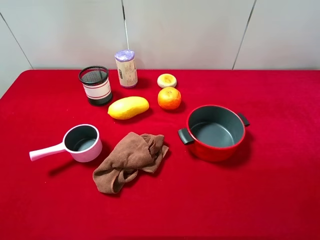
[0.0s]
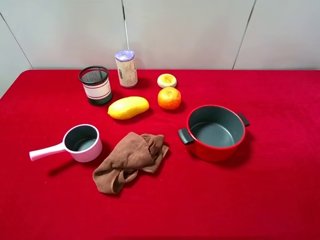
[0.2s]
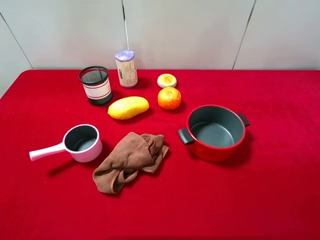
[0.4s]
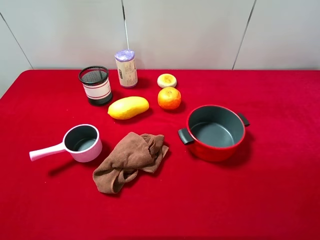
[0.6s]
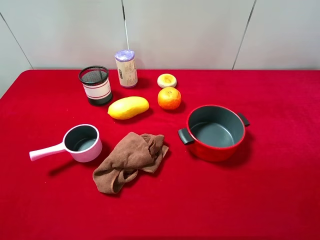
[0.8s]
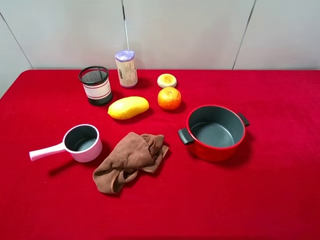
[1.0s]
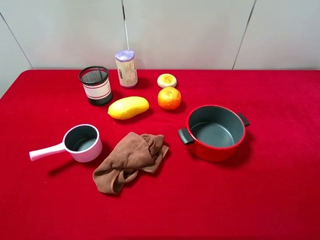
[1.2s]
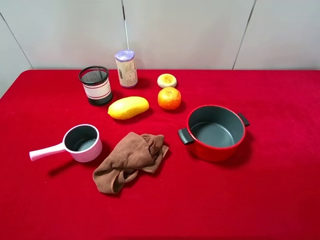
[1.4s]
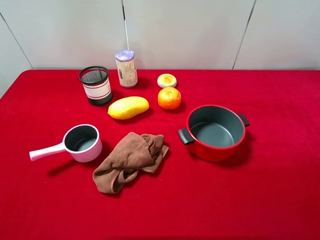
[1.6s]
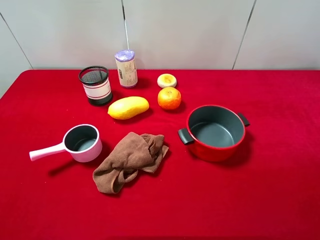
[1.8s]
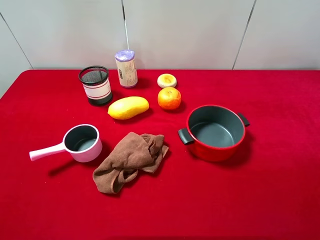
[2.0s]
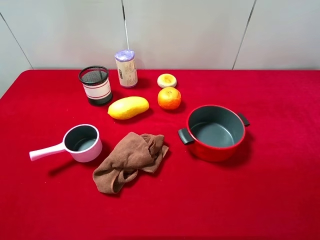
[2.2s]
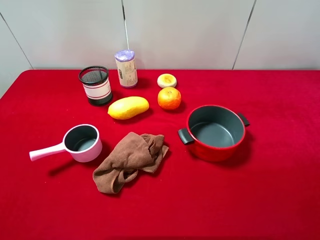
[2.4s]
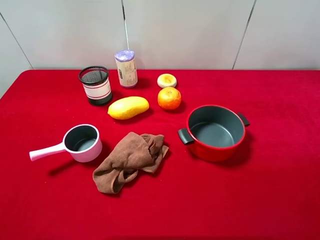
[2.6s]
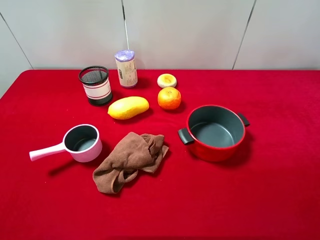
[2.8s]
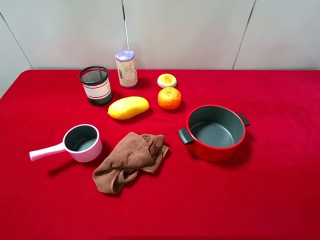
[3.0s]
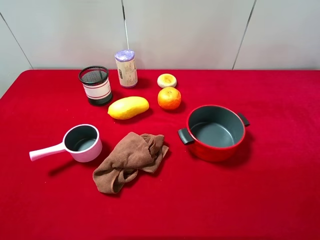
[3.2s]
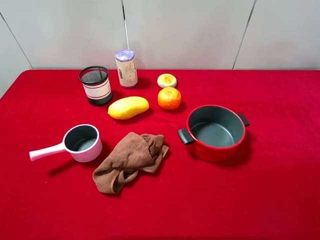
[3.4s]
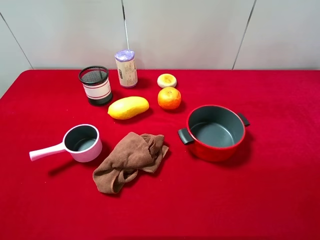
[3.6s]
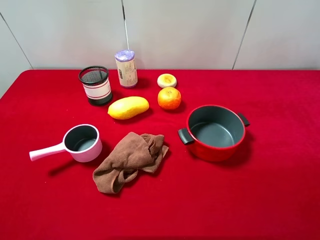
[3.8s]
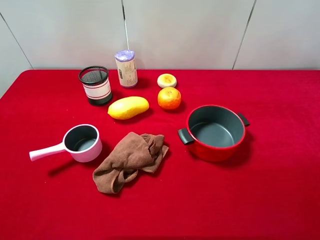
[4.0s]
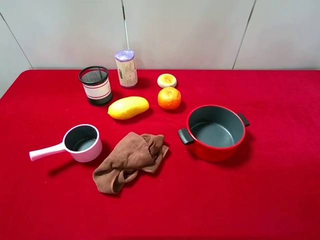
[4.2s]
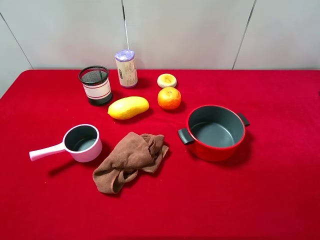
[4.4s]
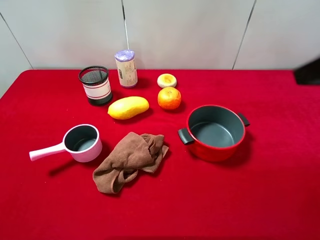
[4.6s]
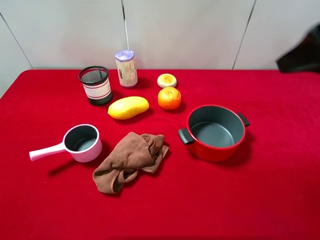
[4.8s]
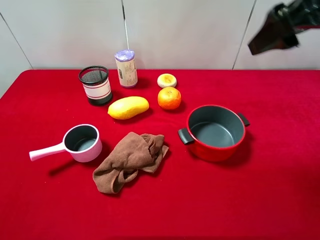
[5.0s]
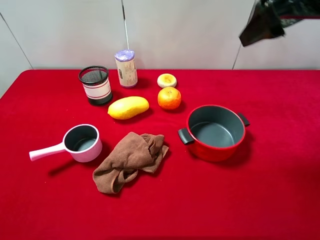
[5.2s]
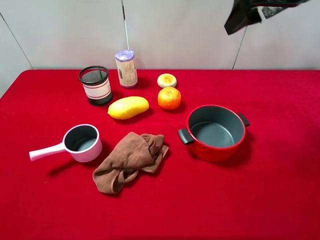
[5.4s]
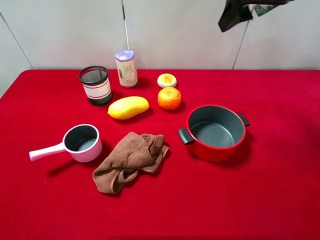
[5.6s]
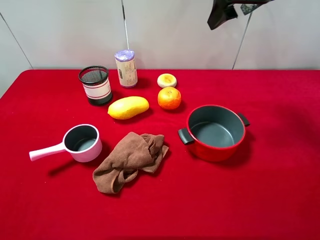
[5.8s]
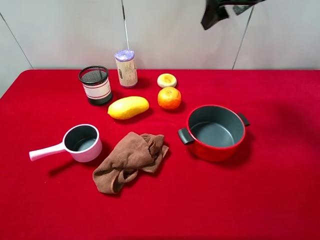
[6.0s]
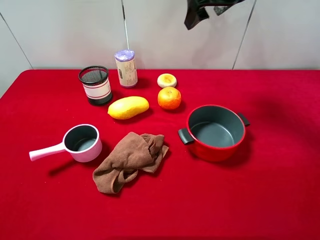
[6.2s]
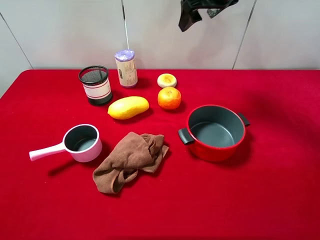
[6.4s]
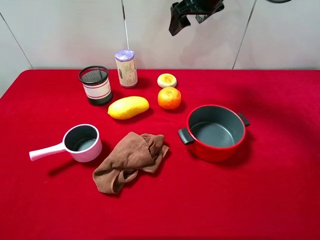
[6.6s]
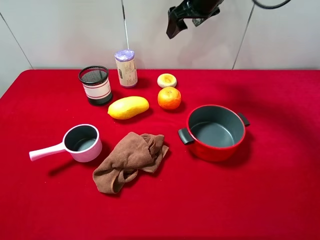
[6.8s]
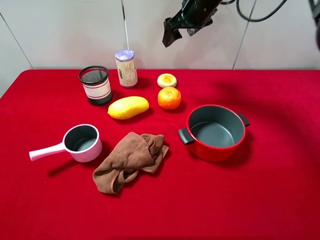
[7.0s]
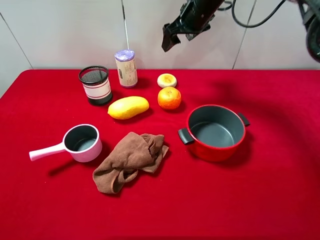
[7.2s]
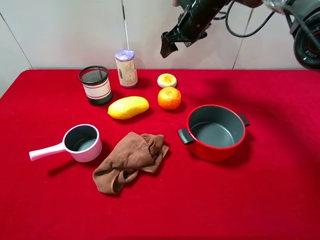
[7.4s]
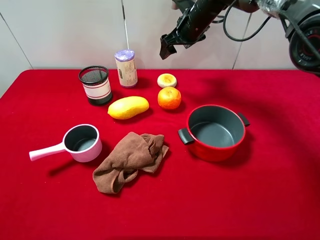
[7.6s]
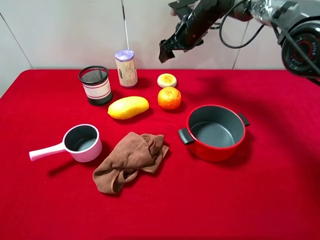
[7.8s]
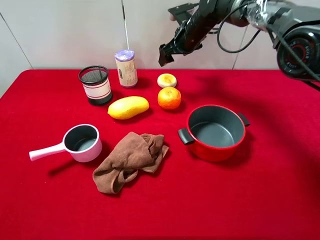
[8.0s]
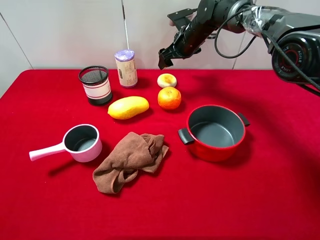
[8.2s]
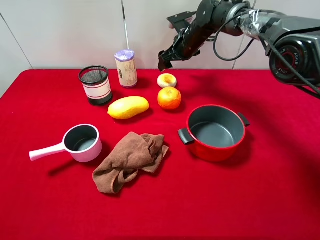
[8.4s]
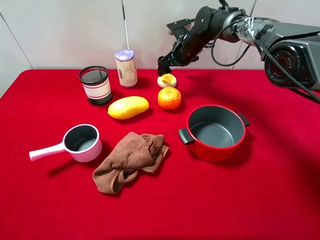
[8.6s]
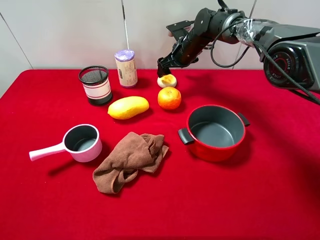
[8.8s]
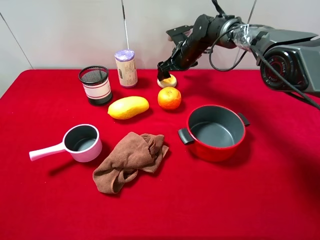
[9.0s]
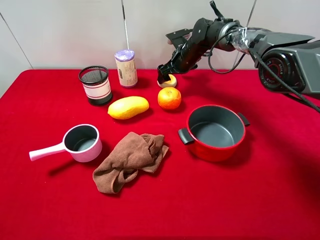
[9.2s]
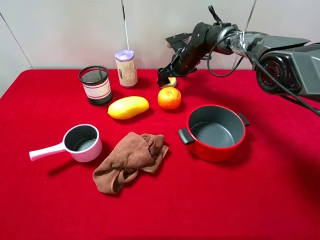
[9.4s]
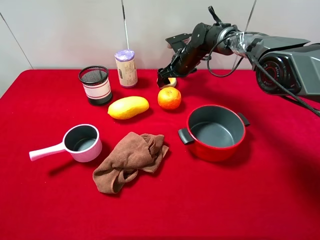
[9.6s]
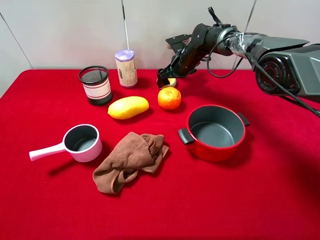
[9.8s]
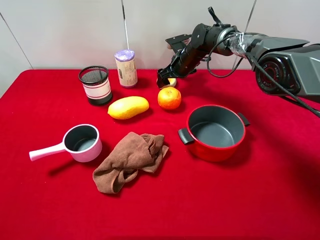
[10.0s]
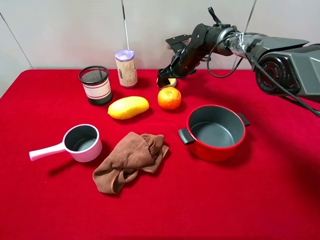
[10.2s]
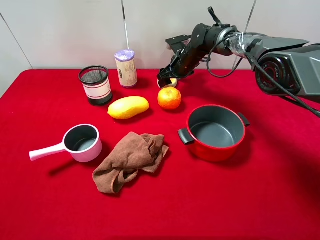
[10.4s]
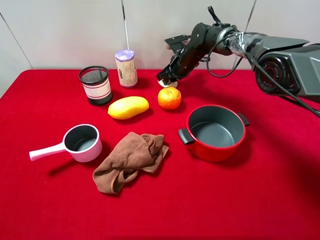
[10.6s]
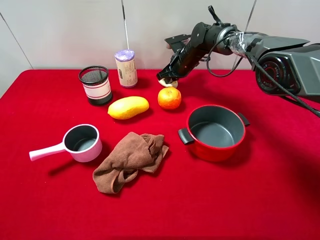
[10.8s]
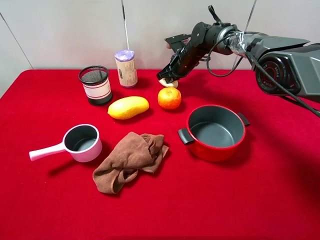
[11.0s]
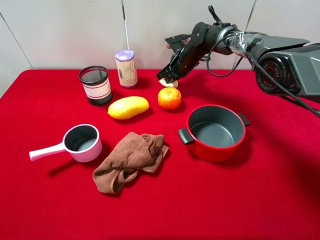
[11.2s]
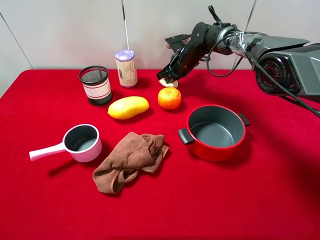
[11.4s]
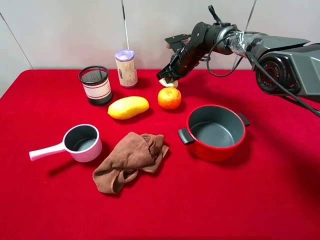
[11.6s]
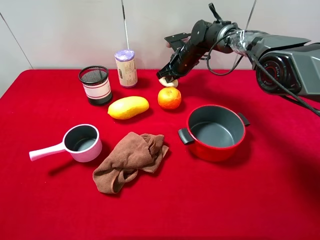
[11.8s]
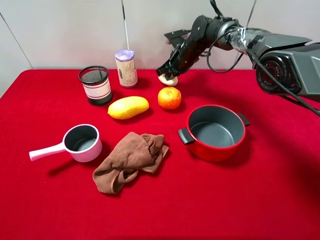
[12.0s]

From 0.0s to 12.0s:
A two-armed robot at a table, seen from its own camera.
Task of the whole recording: pick up an item with a gripper and place it in a random container on the desktop.
From 0.0s to 1.6s: Both grippers stay about where they are.
From 4.4s to 6.0s: The right gripper travels forward and to the left by approximately 30 cm.
From 6.0s to 7.6s: The right gripper travels downward, forward and to the left by some 20 cm.
From 7.6s to 9.0s: The right gripper heads downward, covering about 10 cm.
From 9.0s to 10.4s: The grippers stay close to where they were, moving slightly.
From 10.4s to 12.0s: The right gripper closes.

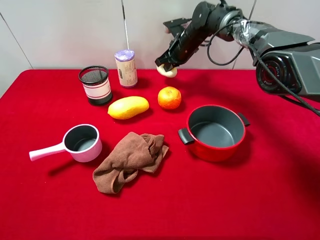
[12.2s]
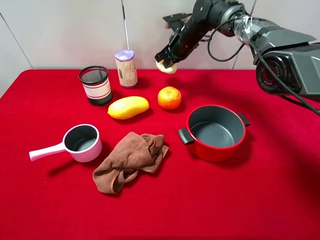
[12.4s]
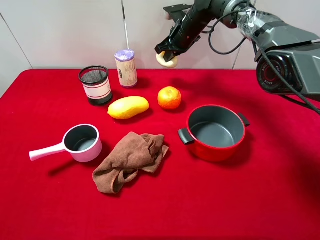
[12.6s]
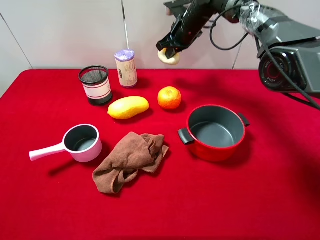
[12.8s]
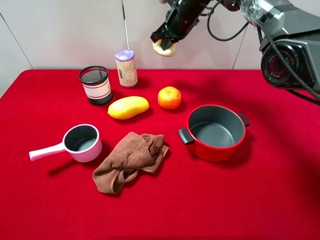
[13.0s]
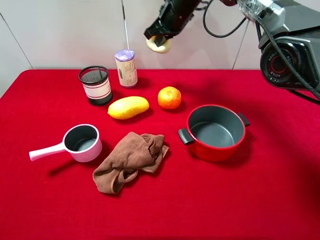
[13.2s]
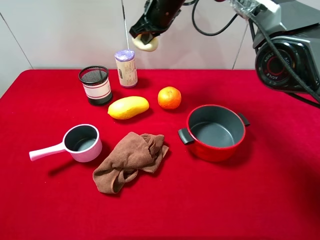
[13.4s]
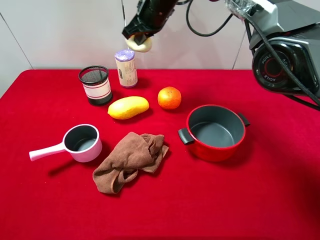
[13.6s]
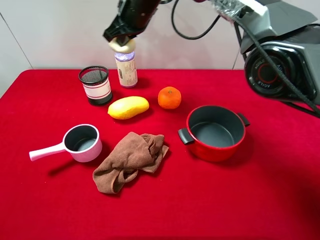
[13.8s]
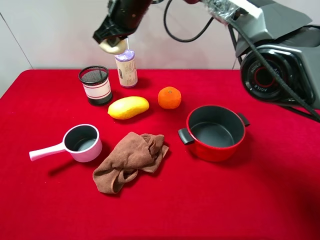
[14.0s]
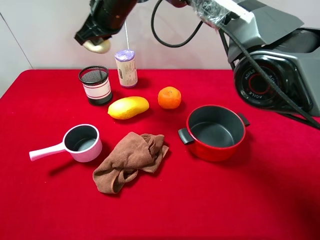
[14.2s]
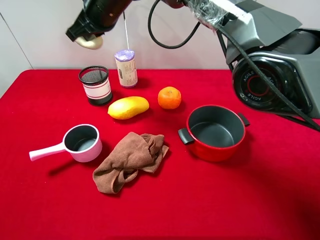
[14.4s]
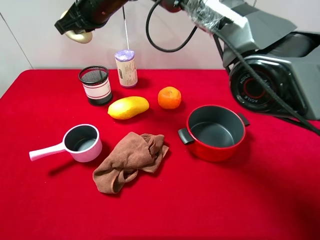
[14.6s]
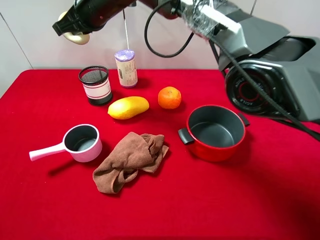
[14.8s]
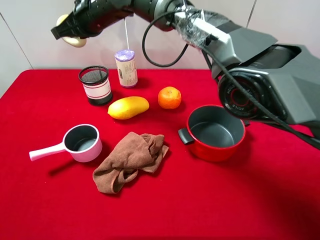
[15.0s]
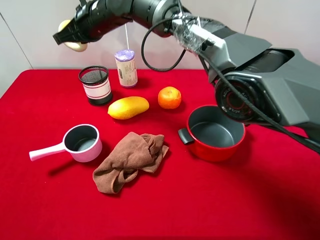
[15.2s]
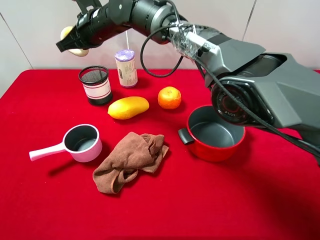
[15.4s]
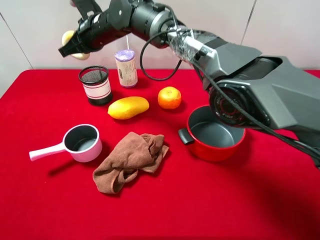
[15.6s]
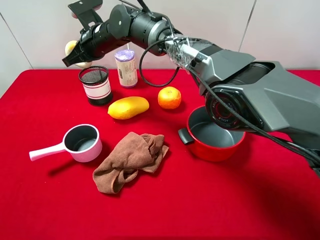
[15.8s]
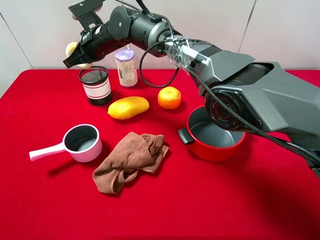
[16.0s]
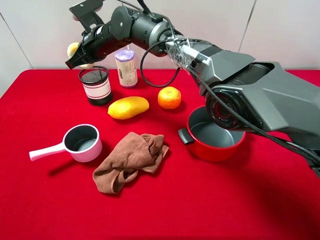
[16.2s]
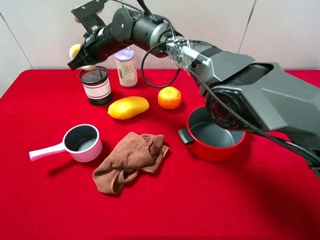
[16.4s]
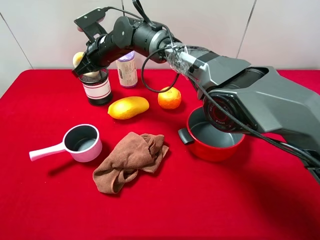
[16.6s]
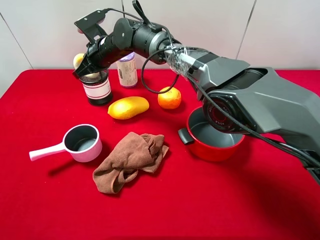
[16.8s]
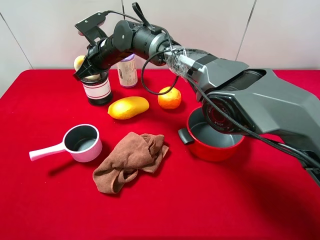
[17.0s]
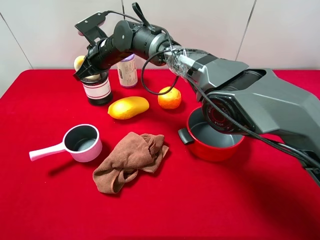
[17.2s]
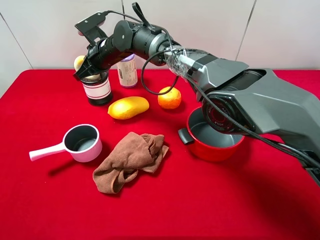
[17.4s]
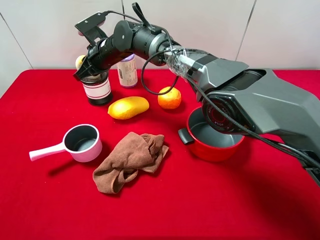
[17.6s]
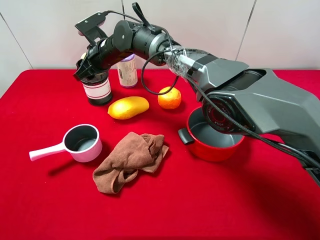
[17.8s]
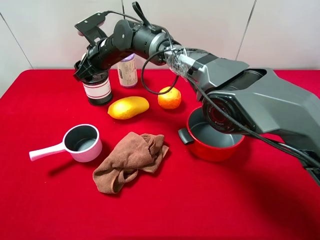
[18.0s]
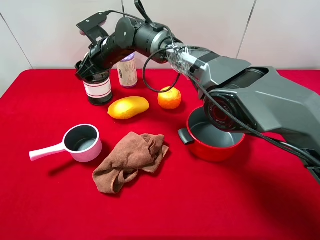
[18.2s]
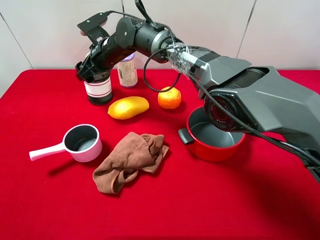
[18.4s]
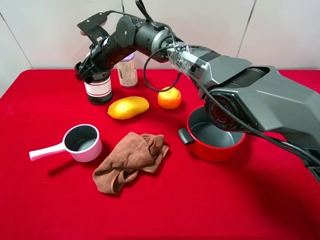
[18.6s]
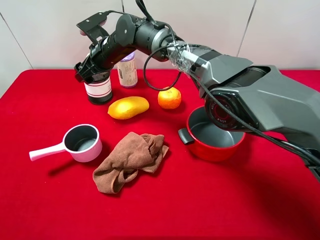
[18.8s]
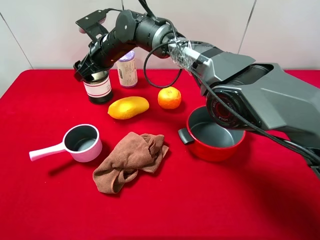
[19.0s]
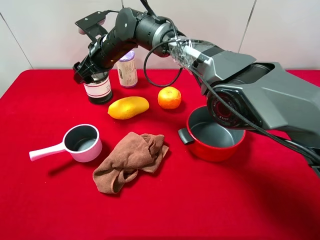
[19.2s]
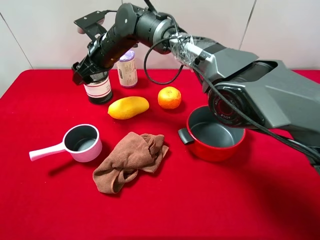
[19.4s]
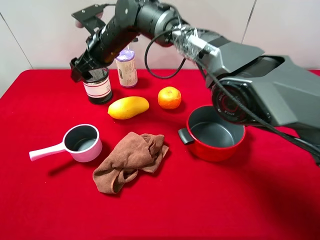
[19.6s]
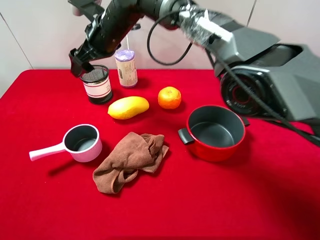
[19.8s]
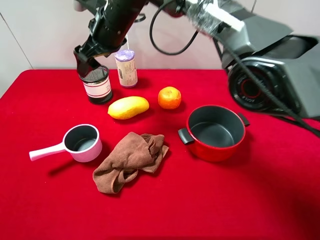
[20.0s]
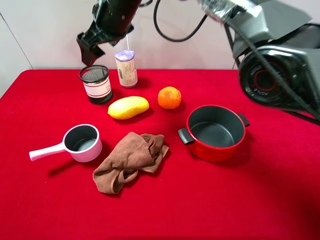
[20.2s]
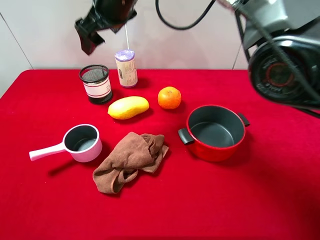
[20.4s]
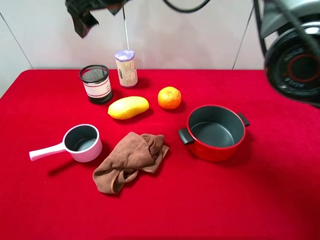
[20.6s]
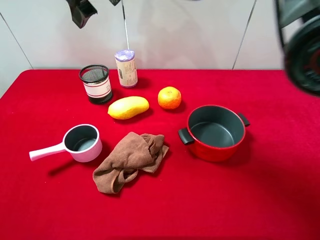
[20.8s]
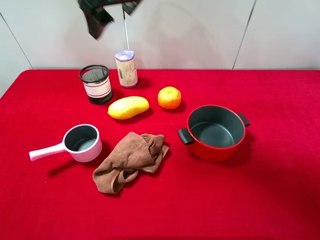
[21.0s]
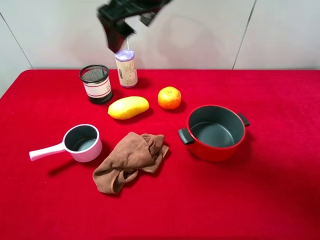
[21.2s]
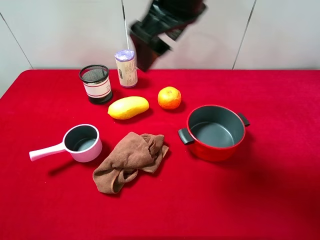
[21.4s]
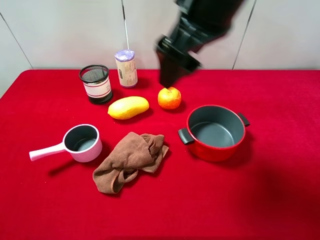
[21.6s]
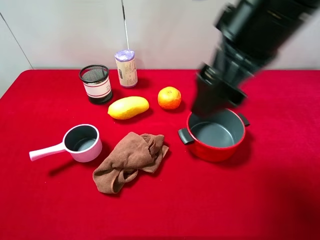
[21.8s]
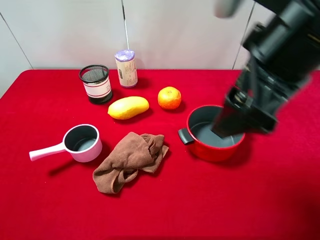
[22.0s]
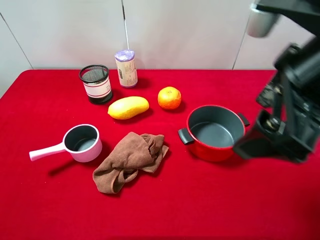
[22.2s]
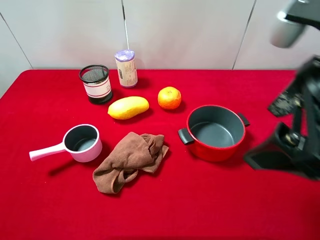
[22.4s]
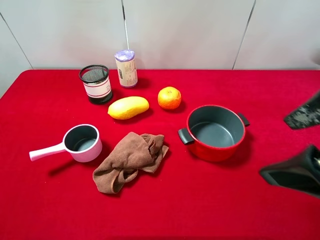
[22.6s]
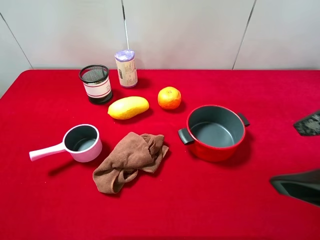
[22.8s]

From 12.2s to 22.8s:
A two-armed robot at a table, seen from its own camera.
Task of the whole recording: pick up an item with a gripper and place it in a random container on the desktop.
From 12.2s to 13.8s: The right gripper travels upward, to the left and backward by about 20 cm.
From 13.8s to 15.2s: The right gripper moves to the left, roughly 10 cm.
From 15.2s to 16.8s: The right gripper moves downward, roughly 10 cm.
From 16.8s to 18.2s: The right gripper opens its fingers.
From 18.2s to 19.8s: The right gripper heads upward, covering roughly 5 cm.
From 19.8s to 21.2s: The right gripper moves upward, backward and to the right, about 20 cm.
From 21.2s to 22.8s: The right gripper is displaced to the right and backward by roughly 30 cm.
